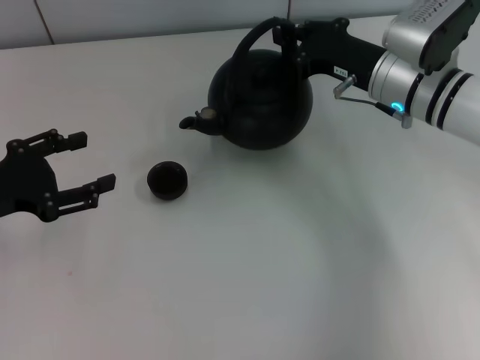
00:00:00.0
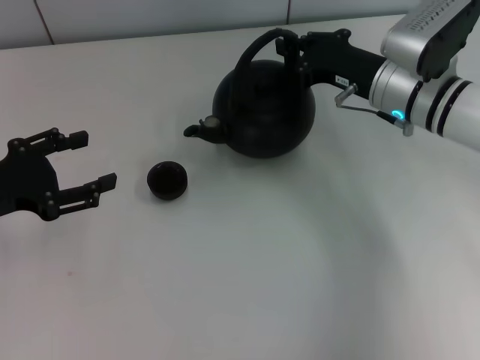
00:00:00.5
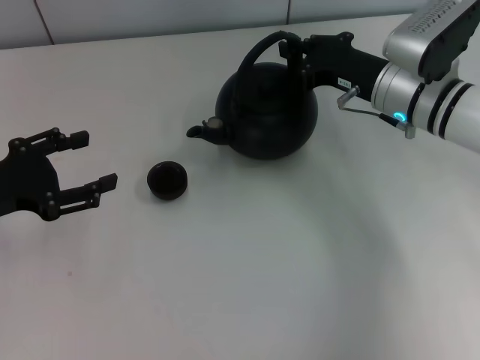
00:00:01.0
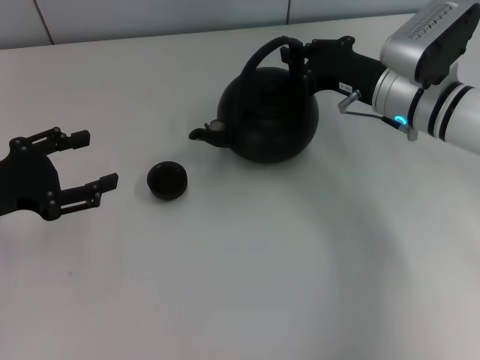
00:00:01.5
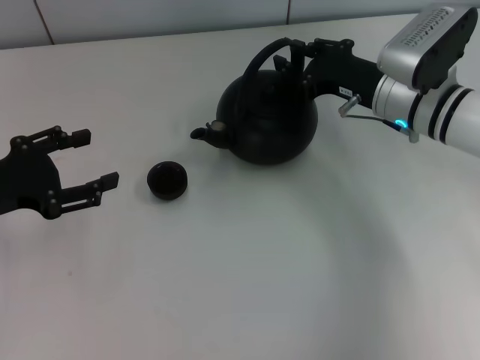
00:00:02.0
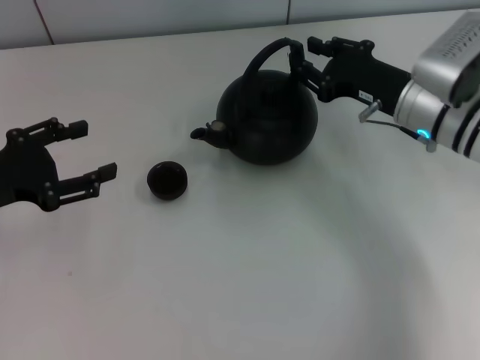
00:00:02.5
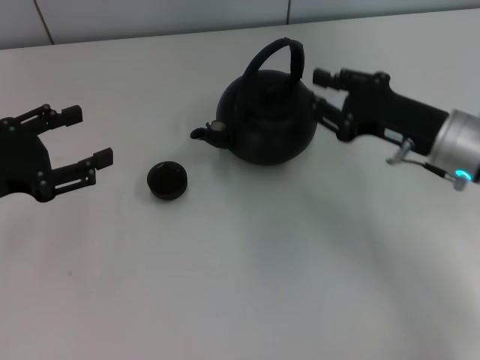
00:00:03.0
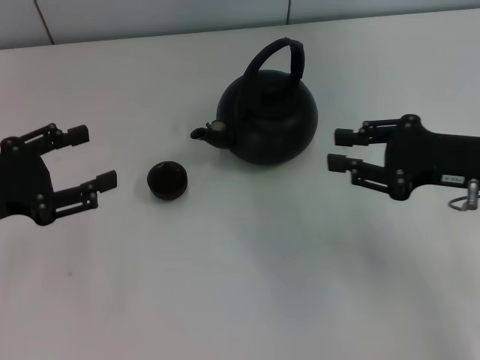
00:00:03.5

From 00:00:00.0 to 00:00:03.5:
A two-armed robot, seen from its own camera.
Task of the whole recording: Grasp the handle of the teapot with one hand and pour tea into the teacup.
Step, from 00:00:00.0 to 00:00:02.5: Put down the teapot with the right gripper.
From 00:00:00.0 to 00:00:02.0: The right gripper opens up.
From 00:00:02.0 to 00:00:03.5: The right gripper moves backward and to the right, about 15 cm.

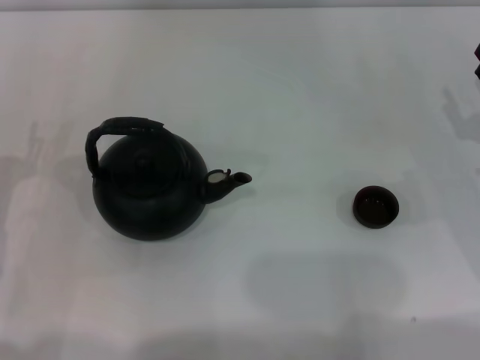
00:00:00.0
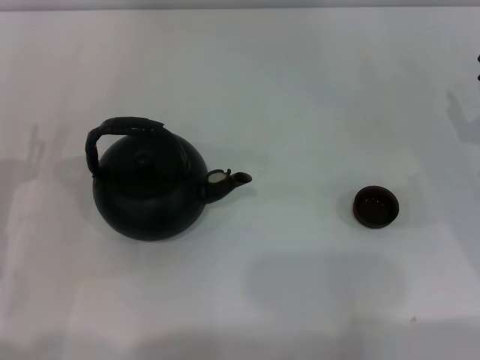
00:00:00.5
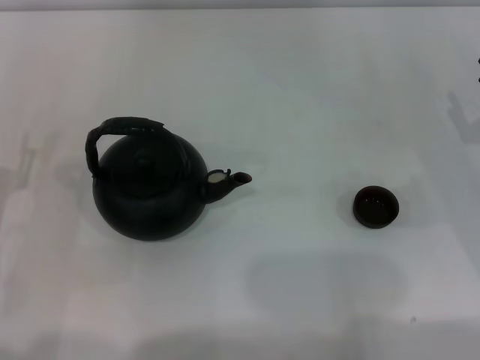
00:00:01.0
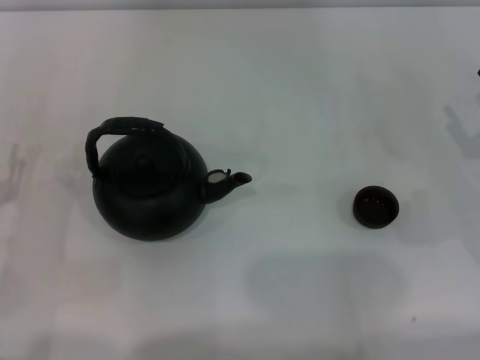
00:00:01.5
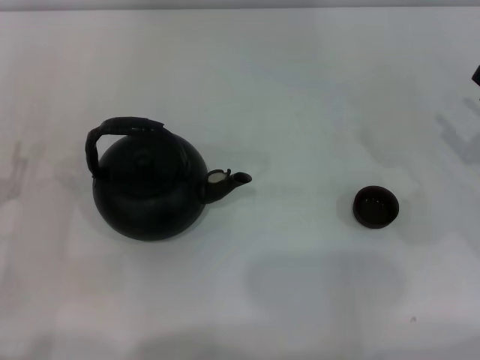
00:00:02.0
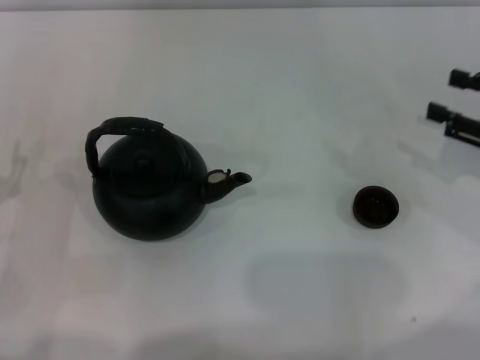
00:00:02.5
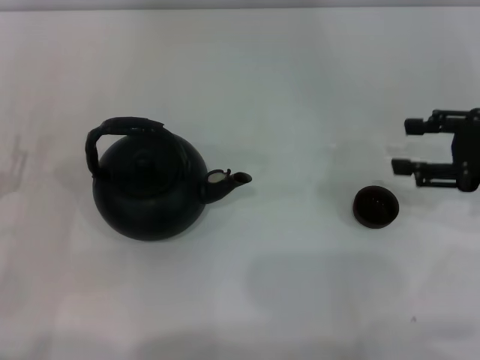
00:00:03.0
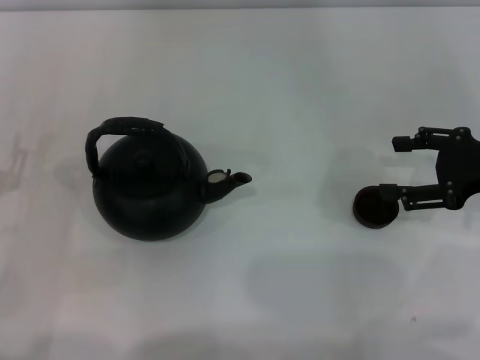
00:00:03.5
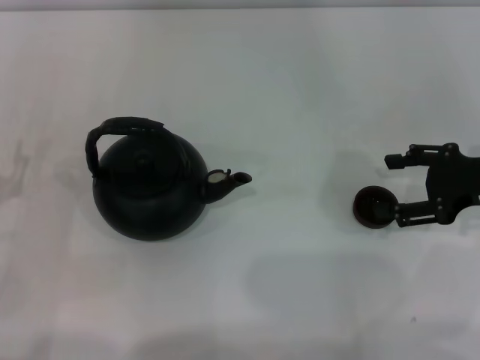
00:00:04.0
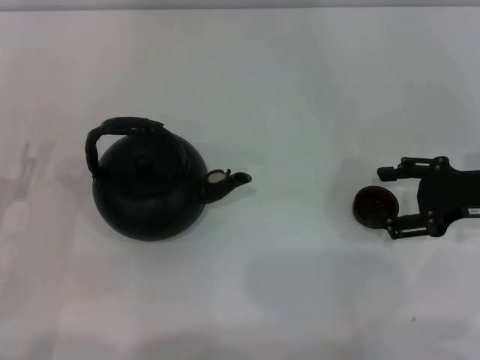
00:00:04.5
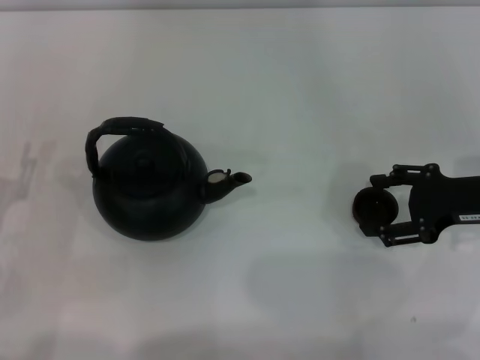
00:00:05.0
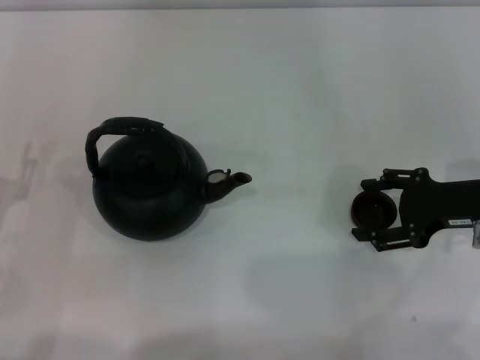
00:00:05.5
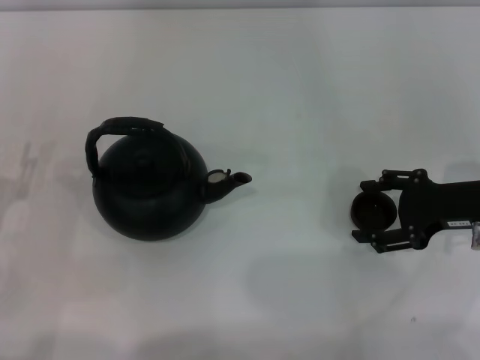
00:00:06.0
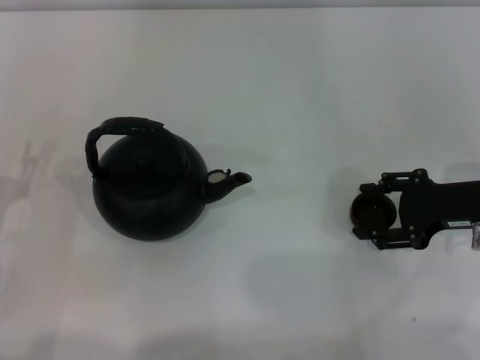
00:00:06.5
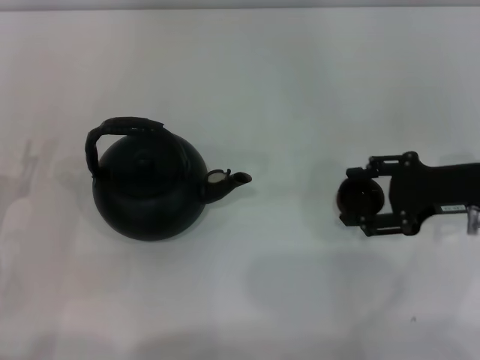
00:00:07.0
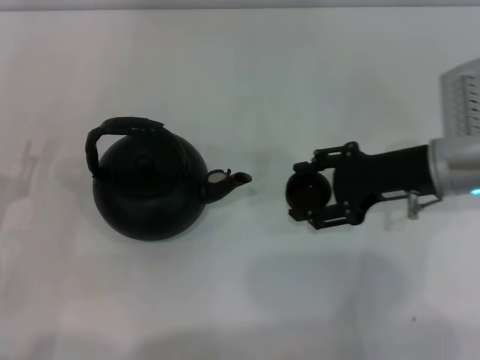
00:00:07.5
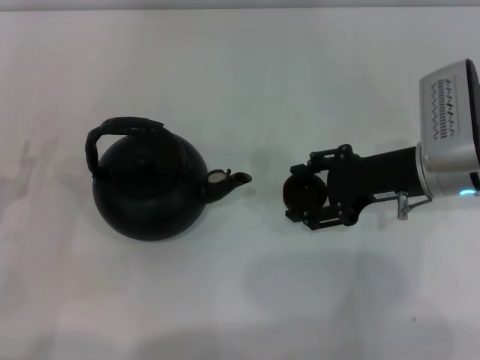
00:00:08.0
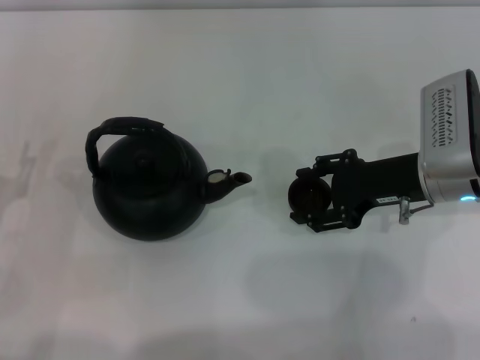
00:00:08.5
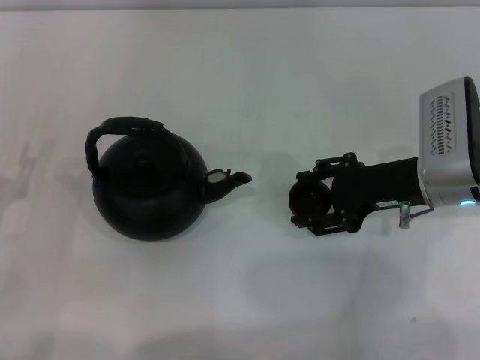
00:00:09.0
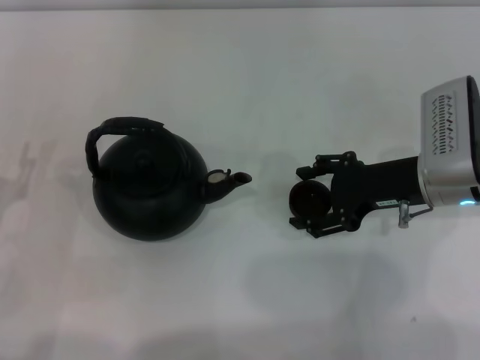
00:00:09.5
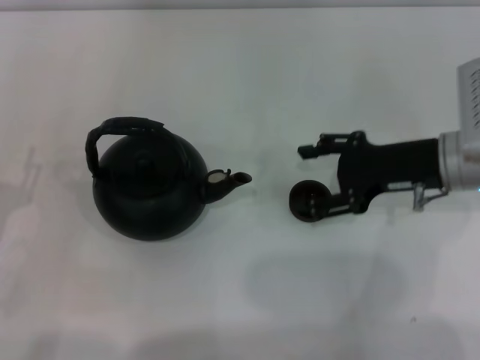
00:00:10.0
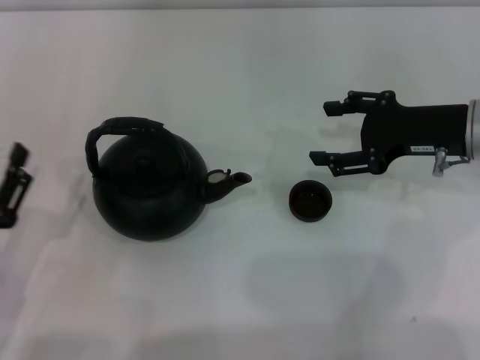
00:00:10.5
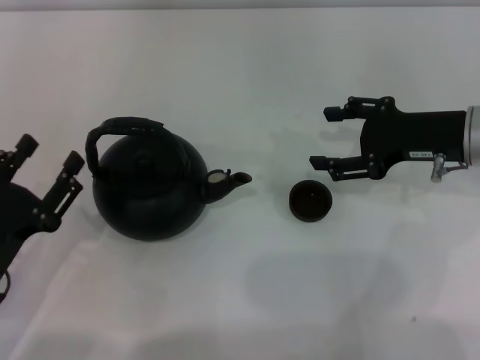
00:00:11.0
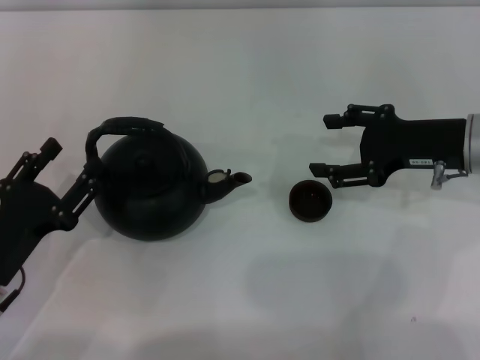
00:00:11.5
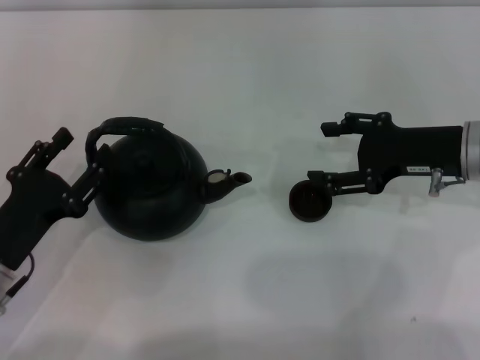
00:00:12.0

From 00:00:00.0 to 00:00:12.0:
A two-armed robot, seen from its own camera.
Task of the whole recording: Grasp the handle of the teapot with one hand and pour tea into the teacup.
Step, from 00:00:00.0 to 00:00:07.0: Pick up the teacup with the right gripper.
Step, from 00:00:07.5 to 00:00:09.5: Place the teacup in the center of view with the right gripper.
From 00:00:02.0 to 00:00:04.0: The right gripper moves roughly 5 cm, and opens.
From 00:00:04.0 to 00:00:06.0: There are only small adjustments of the grippers.
From 00:00:06.0 to 00:00:08.0: The right gripper moves to the left, roughly 10 cm, and closes.
From 00:00:08.0 to 00:00:10.0: The right gripper opens.

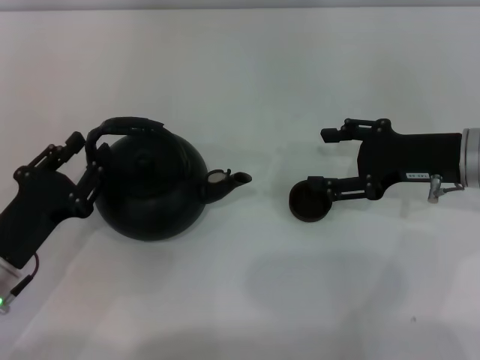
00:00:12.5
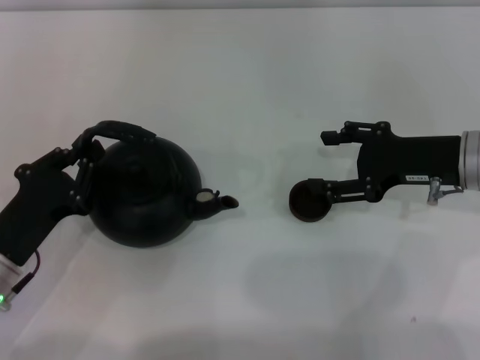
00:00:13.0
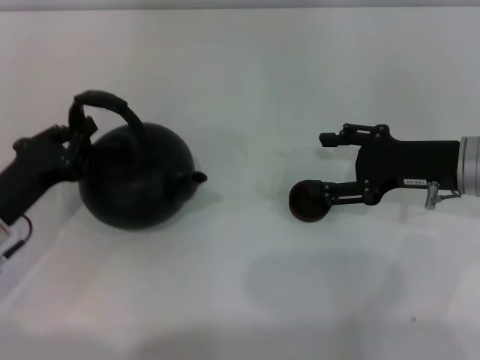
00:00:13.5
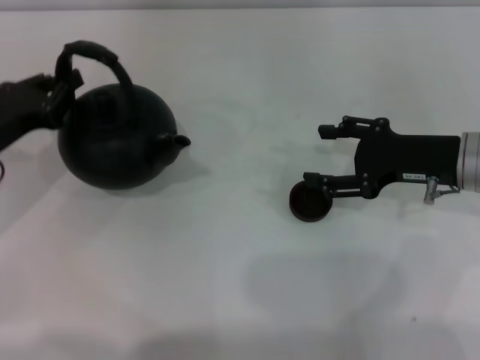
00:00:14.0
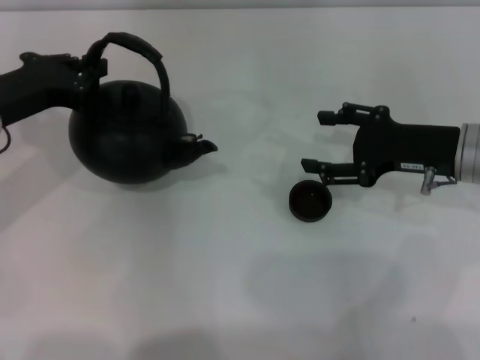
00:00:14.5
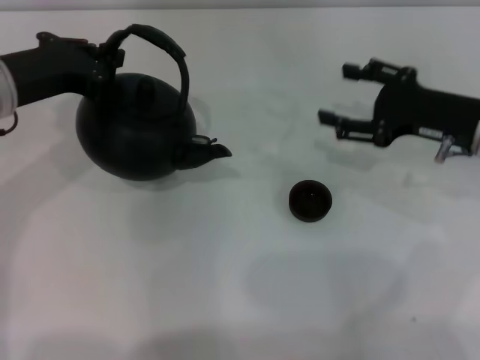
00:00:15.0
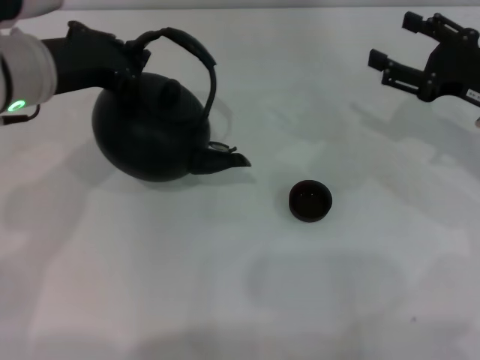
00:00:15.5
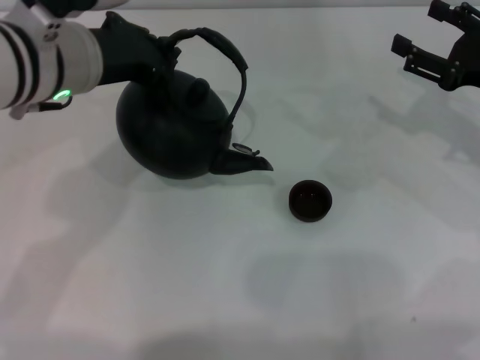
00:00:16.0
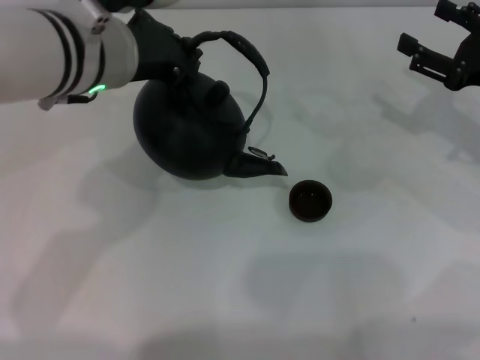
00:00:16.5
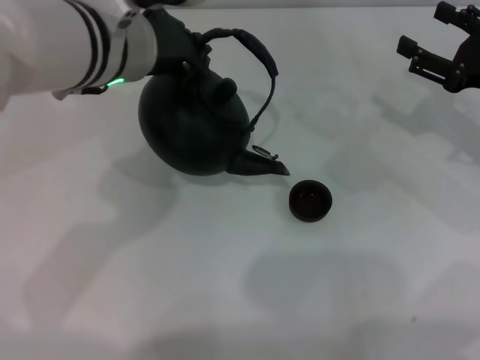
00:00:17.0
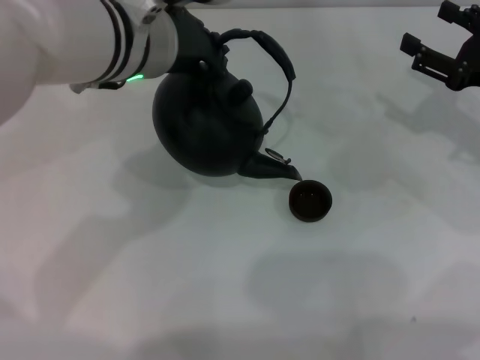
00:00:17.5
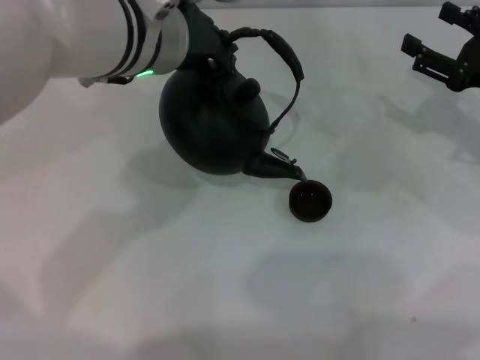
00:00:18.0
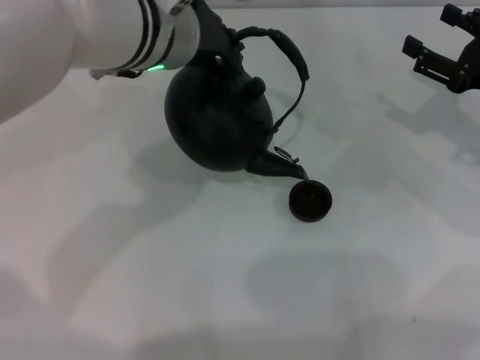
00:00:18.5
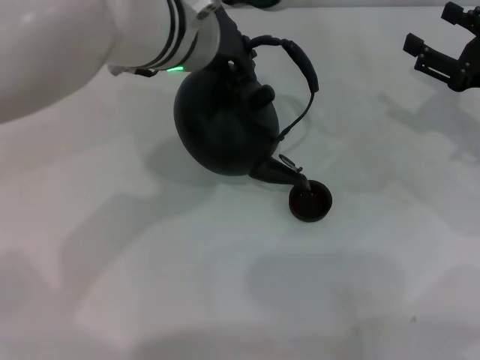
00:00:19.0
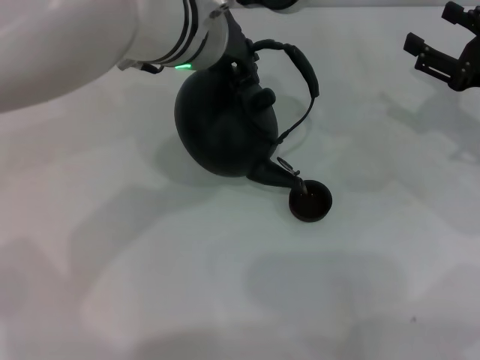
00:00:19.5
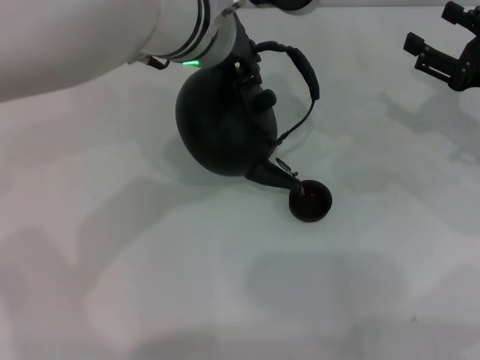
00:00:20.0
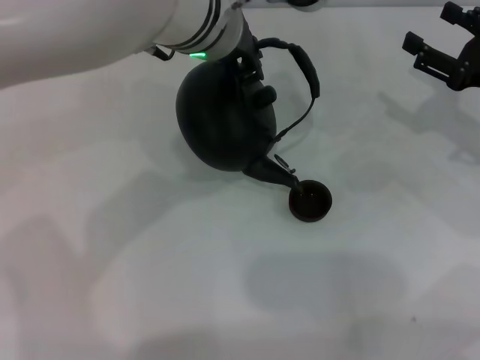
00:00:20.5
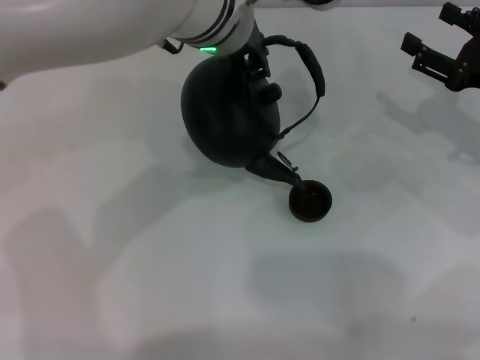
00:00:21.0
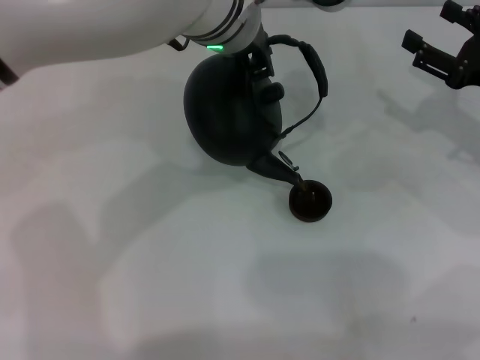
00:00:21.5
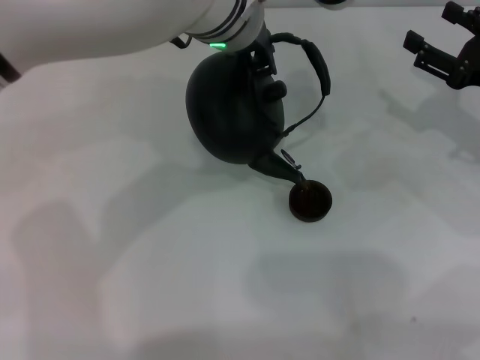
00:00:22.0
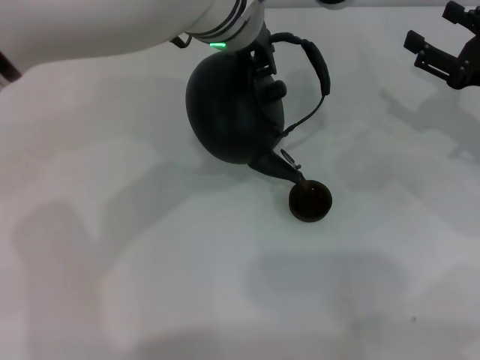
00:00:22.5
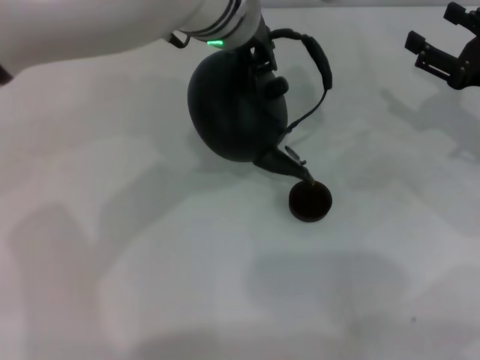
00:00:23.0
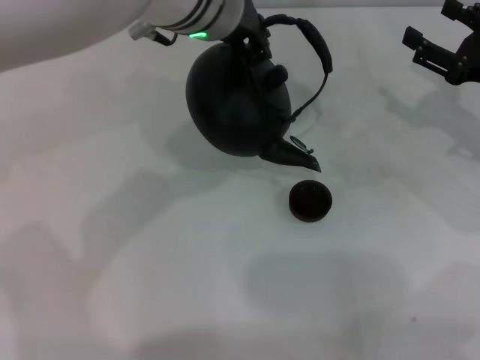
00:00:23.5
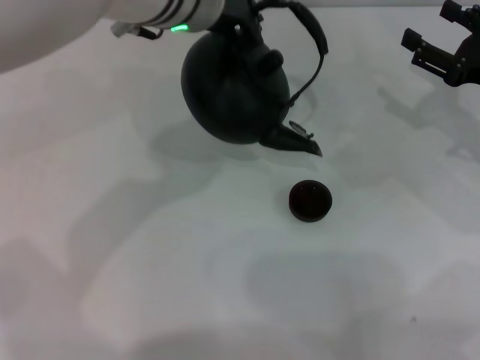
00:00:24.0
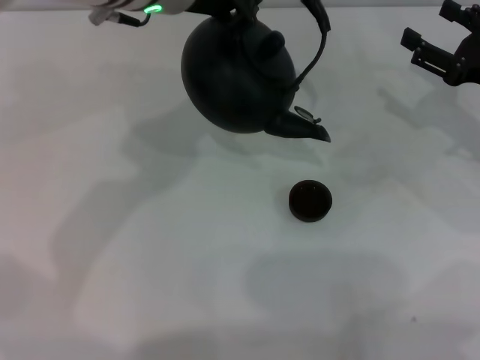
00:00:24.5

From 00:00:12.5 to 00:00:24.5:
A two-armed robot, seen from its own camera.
Task of the whole recording: Grasp the handle of the teapot with one hand and pour tea into the teacup.
Step, from 00:00:14.5 to 00:00:23.0: Pour tea into the teacup with the left gripper.
From 00:00:12.5 to 00:00:14.5: The left gripper shifts approximately 15 cm forward and upward, and closes.
From 00:00:14.5 to 00:00:16.5: The left gripper heads to the right and upward, covering roughly 15 cm; the right gripper heads to the right, covering approximately 5 cm.
From 00:00:16.5 to 00:00:18.5: The left gripper changes place by about 5 cm.
From 00:00:18.5 to 00:00:20.5: There are only small adjustments of the grippers.
From 00:00:20.5 to 00:00:22.5: The grippers move only a little.
From 00:00:22.5 to 00:00:24.5: The left gripper is displaced to the left by approximately 5 cm.
